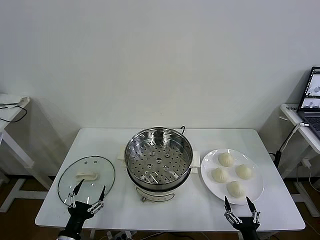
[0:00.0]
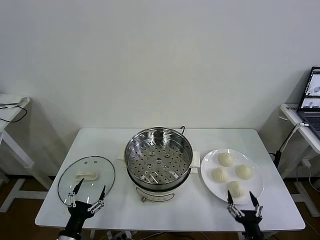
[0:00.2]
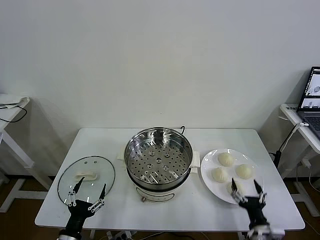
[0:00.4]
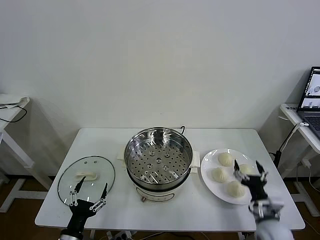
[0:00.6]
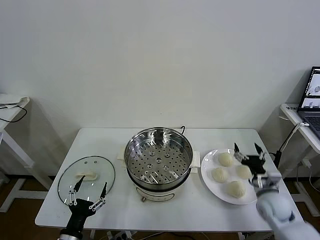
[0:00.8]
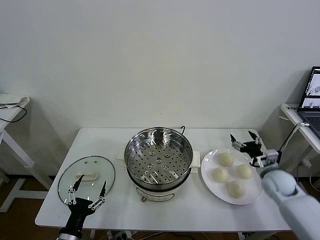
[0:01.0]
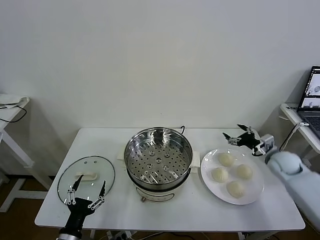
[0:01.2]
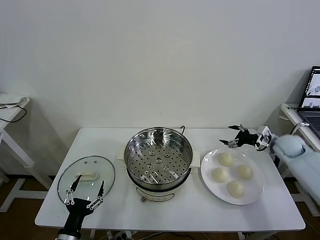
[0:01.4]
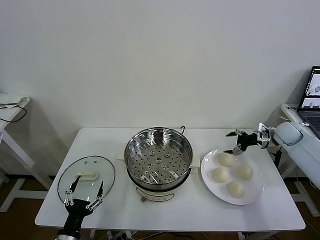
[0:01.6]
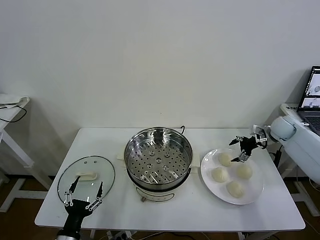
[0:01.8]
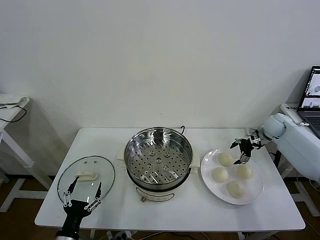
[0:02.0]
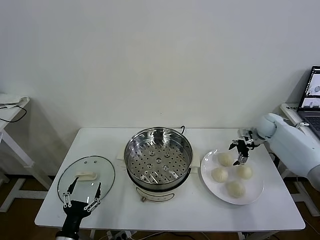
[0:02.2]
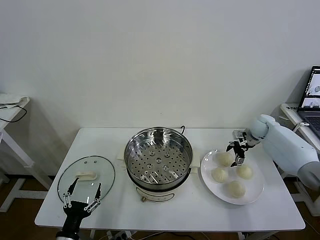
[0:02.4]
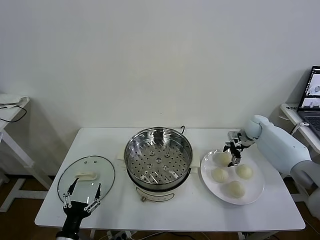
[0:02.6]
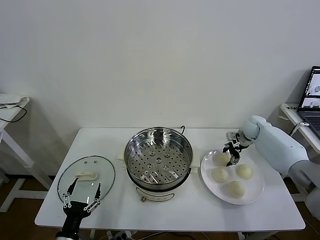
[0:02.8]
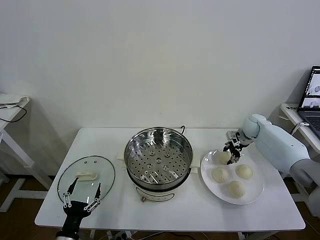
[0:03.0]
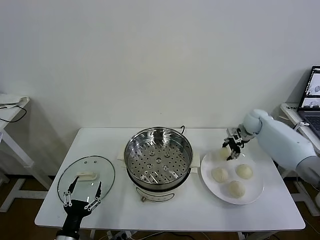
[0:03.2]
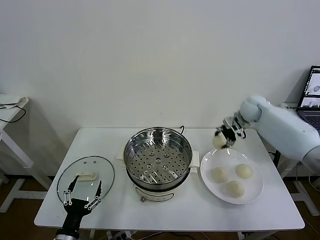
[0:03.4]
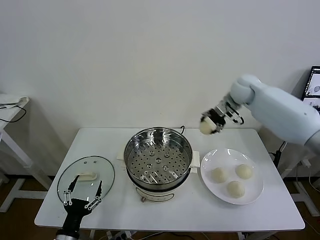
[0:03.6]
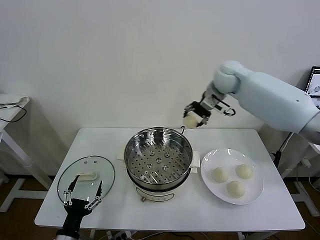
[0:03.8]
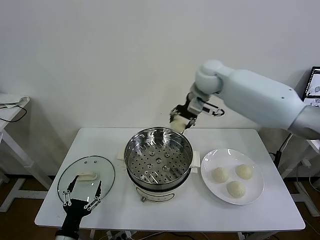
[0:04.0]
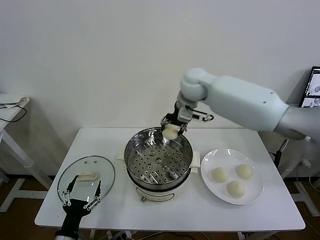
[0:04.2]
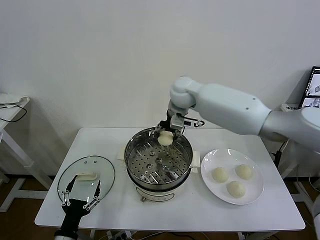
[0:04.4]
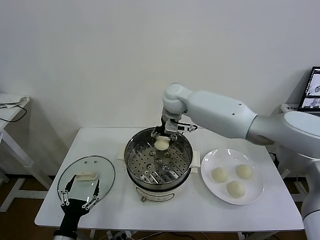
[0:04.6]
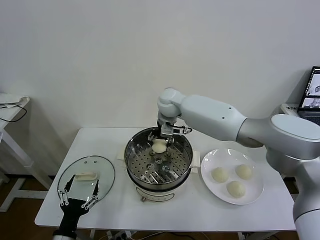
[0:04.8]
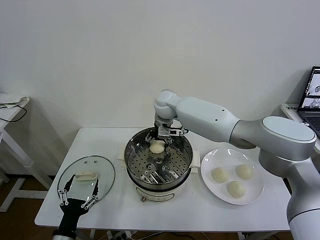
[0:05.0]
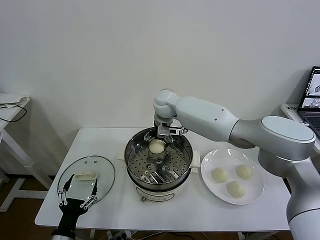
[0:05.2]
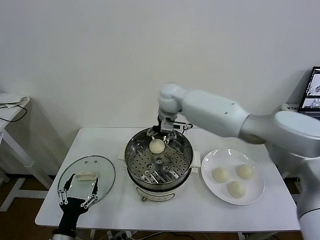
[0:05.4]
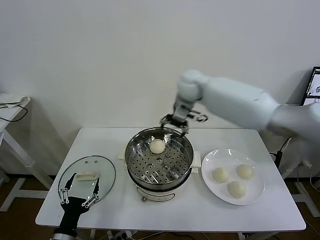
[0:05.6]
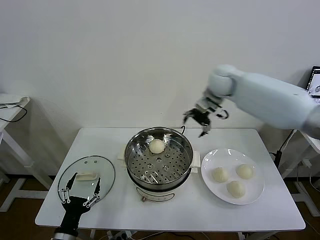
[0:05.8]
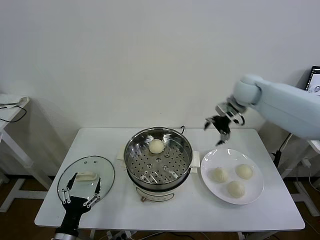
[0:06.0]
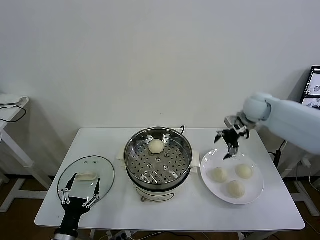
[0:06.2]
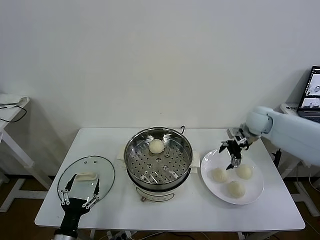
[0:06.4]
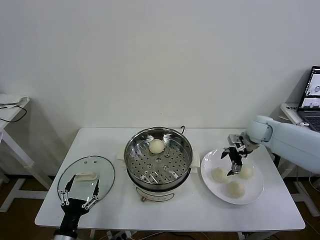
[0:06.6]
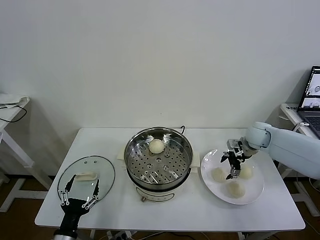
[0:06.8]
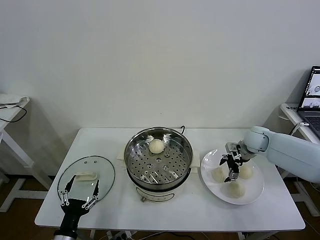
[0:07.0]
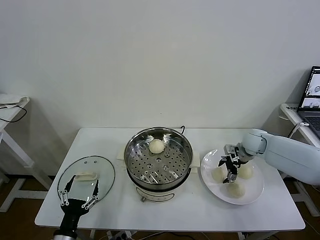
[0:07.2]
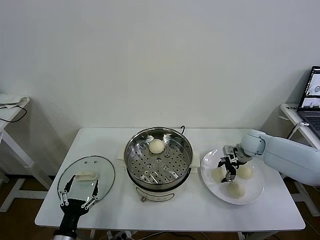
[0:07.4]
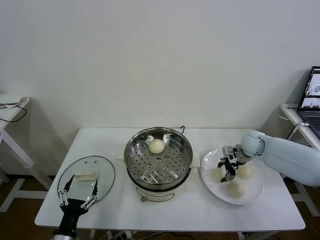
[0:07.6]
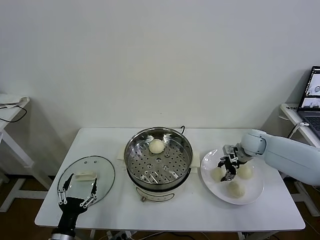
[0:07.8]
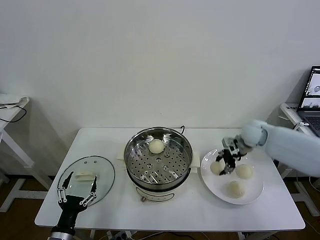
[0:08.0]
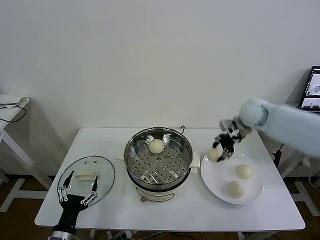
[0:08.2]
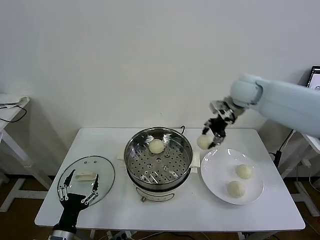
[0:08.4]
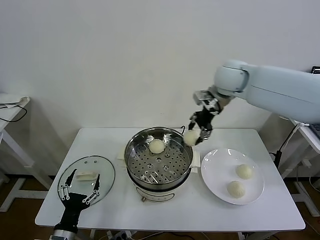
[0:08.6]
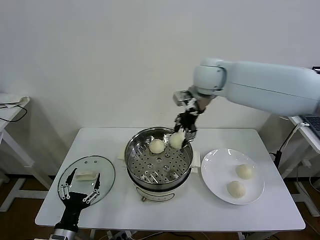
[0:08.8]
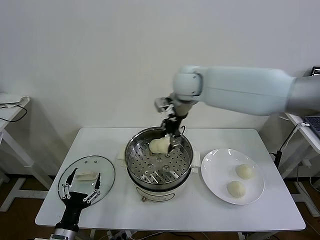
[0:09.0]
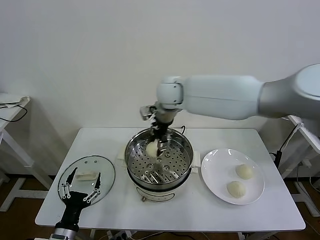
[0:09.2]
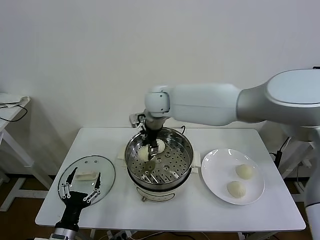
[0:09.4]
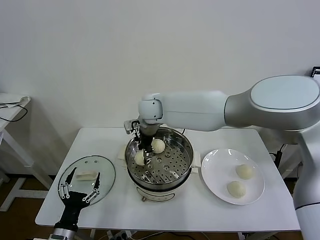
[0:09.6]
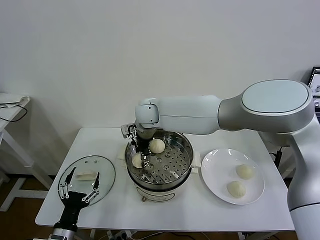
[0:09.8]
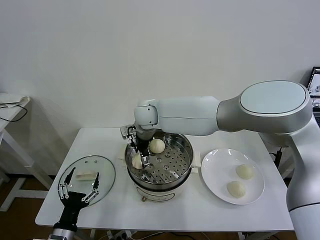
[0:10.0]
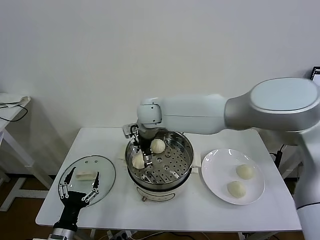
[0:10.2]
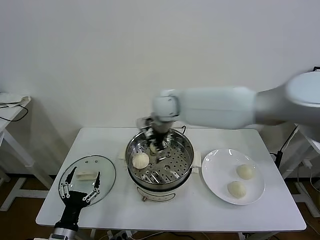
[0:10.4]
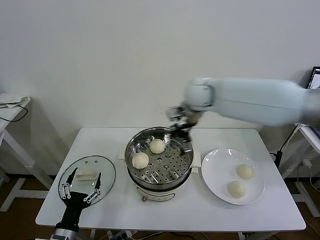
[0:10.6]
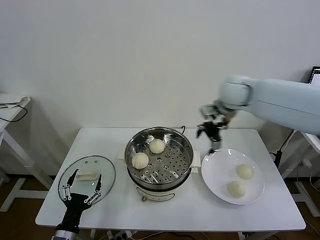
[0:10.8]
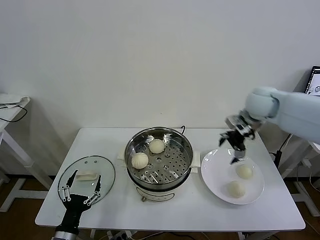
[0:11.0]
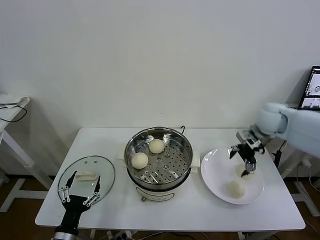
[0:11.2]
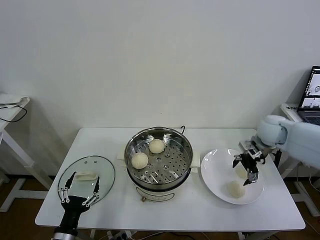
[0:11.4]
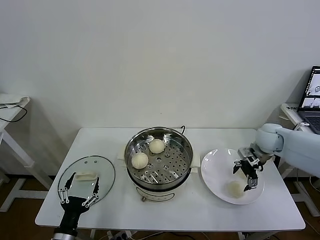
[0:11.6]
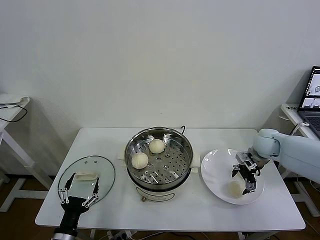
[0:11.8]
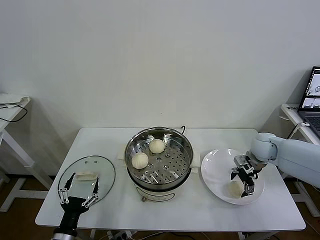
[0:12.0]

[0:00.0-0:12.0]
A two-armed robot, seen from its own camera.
Task of the whole recording: take steamed baozi put them in steamer then cover it.
Step, 0.0 to 2.8 s: Grasp the baozi in the plate with right gripper.
Step, 3.2 to 5.2 s: Place the baozi on the steamer with right gripper.
Step, 5.4 to 7.6 s: Grasp the baozi in the plate with right gripper.
Step, 7.8 to 10.0 s: Place the baozi on the steamer with right gripper.
1.6 to 3.0 s: The right gripper goes some 10 cm to the left and forward, and closes up.
3.0 to 4.4 s: The right gripper moves to the left and upward, about 35 cm.
4.4 to 6.0 s: The right gripper heads to the right, covering some 25 cm, and opens its fingers.
6.0 to 7.6 s: The right gripper moves downward, about 15 cm, and closes up.
7.6 to 9.0 s: The right gripper is displaced to the left and upward by approximately 40 cm.
9.0 to 10.4 s: The right gripper goes to the left and returns, some 10 cm each way, and opens its fingers.
10.4 to 12.0 s: The right gripper moves to the right and downward, about 35 cm.

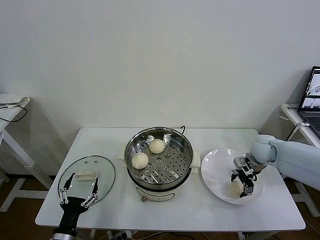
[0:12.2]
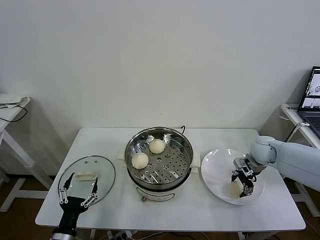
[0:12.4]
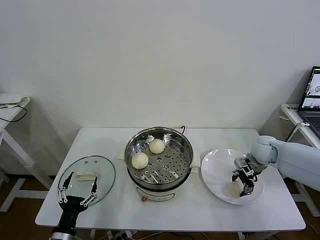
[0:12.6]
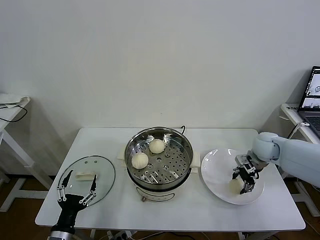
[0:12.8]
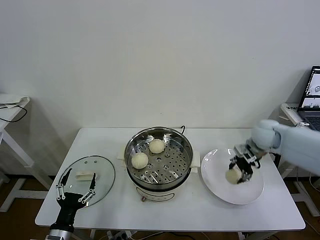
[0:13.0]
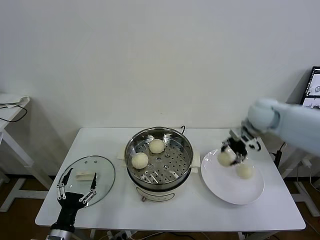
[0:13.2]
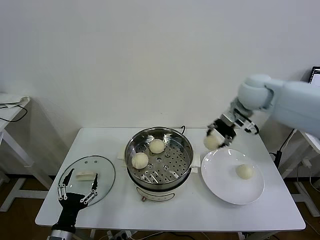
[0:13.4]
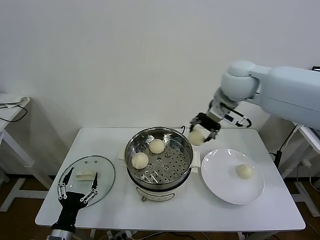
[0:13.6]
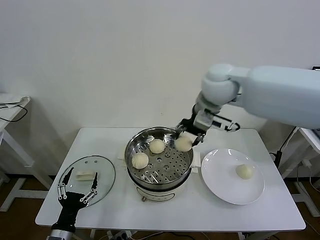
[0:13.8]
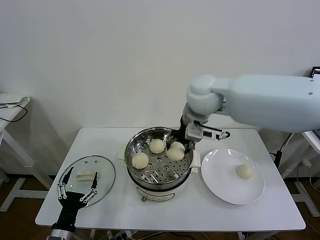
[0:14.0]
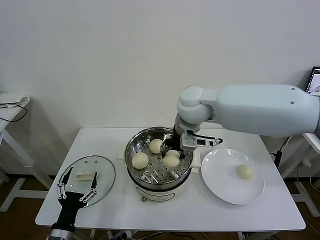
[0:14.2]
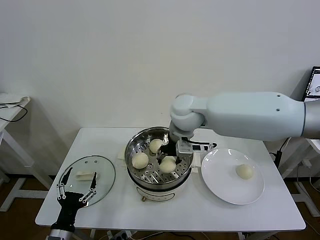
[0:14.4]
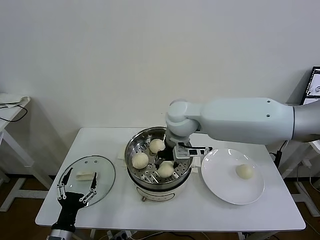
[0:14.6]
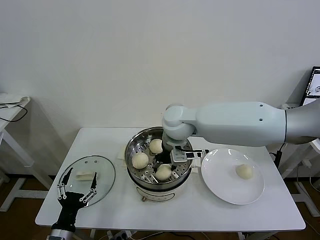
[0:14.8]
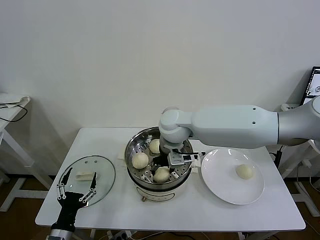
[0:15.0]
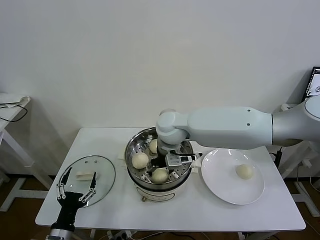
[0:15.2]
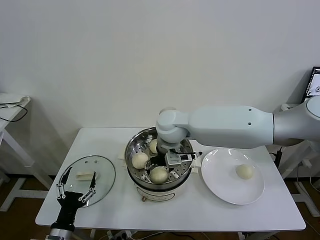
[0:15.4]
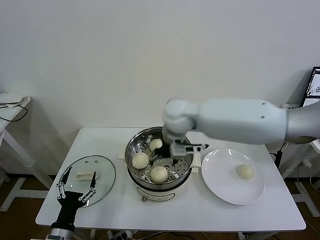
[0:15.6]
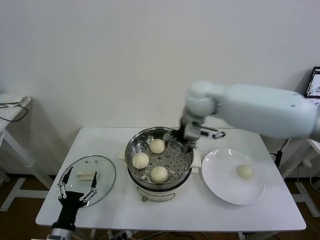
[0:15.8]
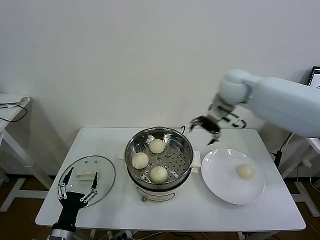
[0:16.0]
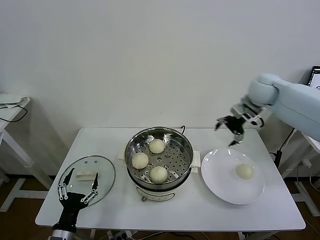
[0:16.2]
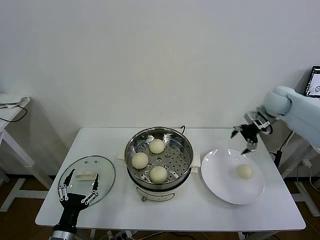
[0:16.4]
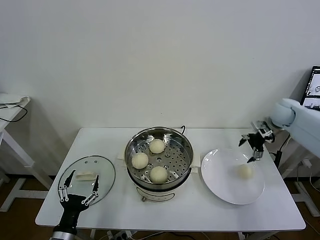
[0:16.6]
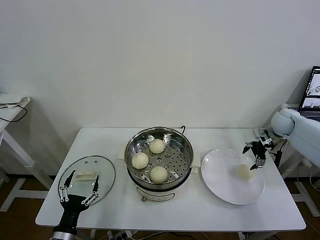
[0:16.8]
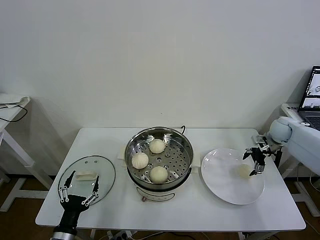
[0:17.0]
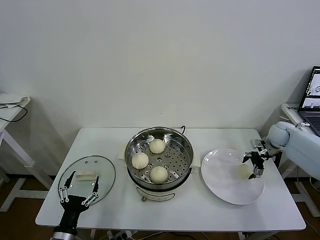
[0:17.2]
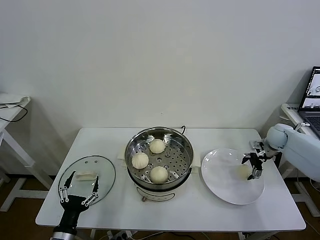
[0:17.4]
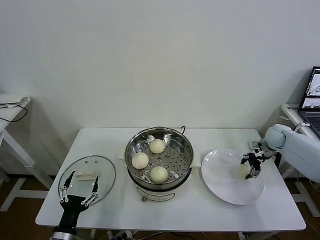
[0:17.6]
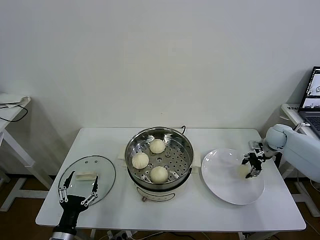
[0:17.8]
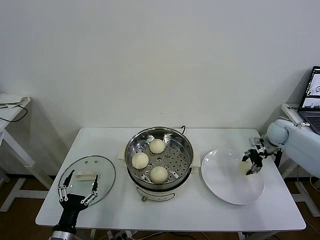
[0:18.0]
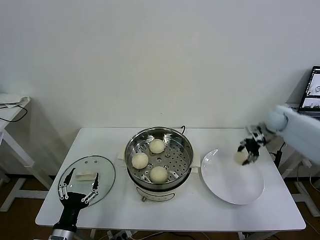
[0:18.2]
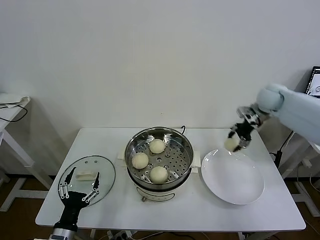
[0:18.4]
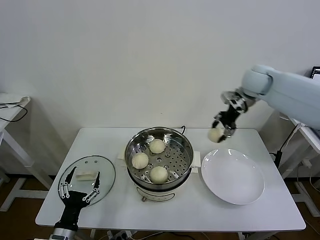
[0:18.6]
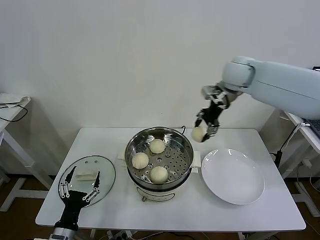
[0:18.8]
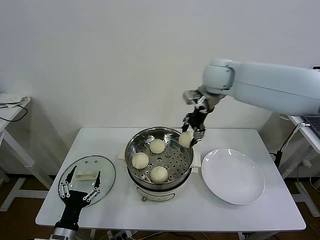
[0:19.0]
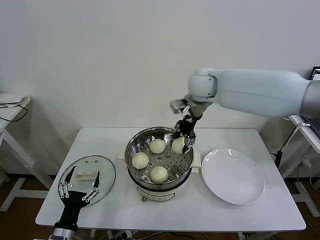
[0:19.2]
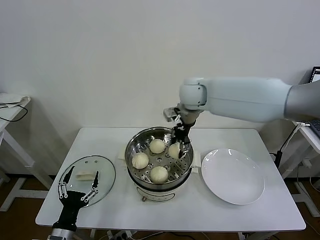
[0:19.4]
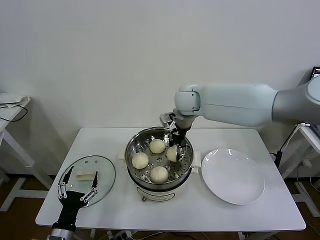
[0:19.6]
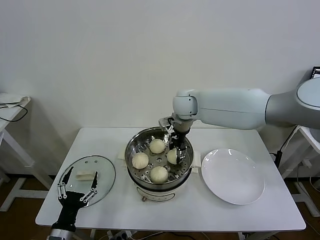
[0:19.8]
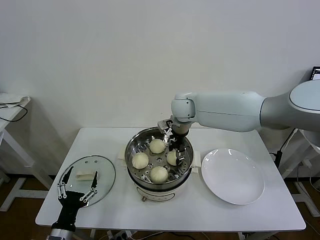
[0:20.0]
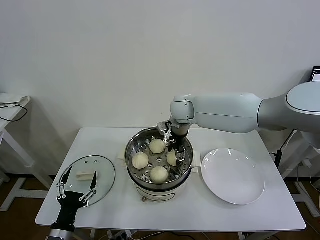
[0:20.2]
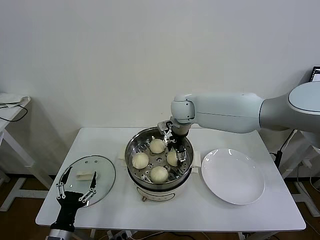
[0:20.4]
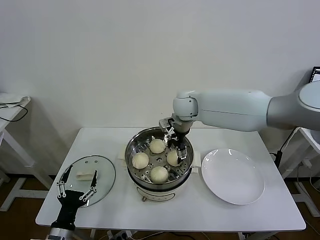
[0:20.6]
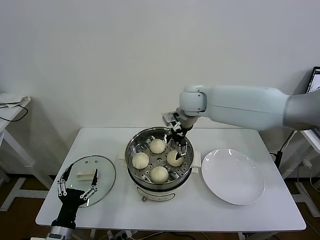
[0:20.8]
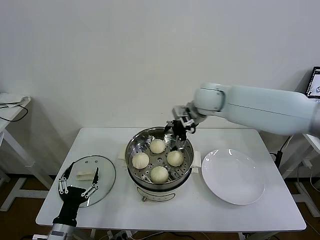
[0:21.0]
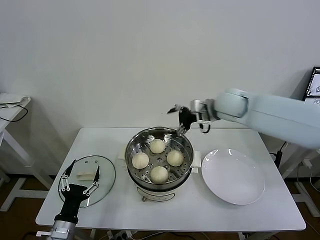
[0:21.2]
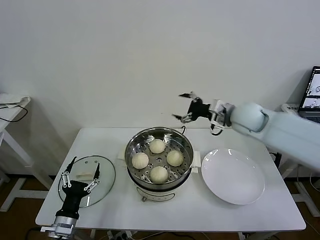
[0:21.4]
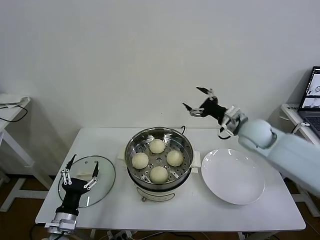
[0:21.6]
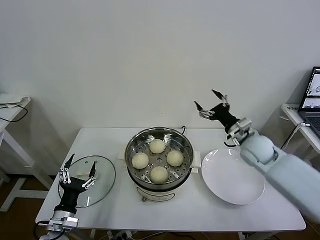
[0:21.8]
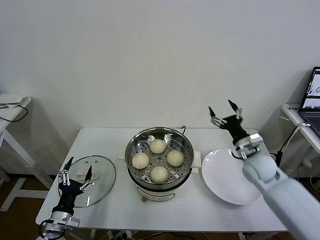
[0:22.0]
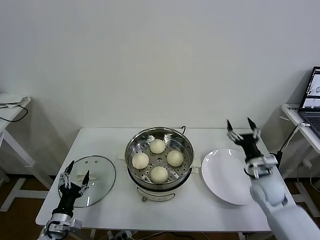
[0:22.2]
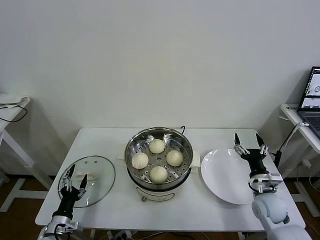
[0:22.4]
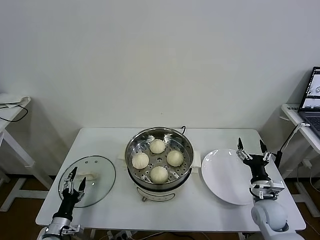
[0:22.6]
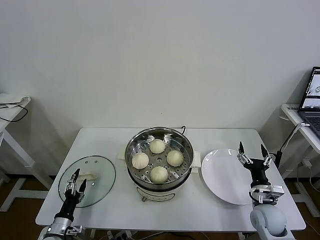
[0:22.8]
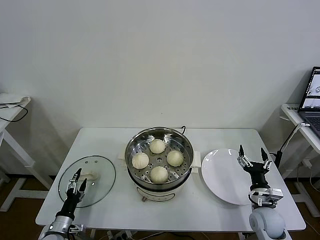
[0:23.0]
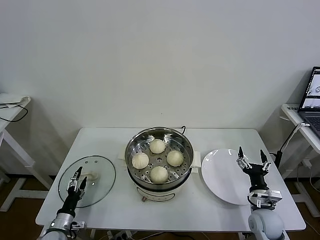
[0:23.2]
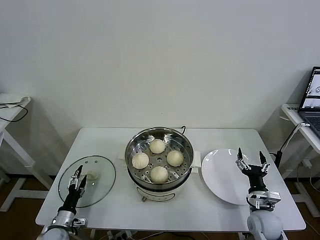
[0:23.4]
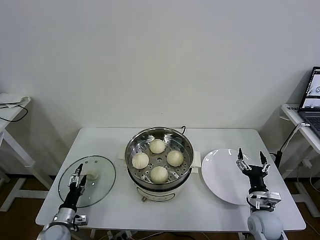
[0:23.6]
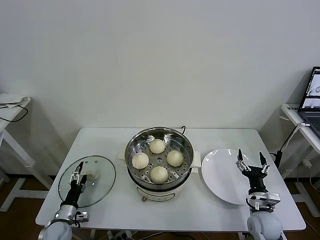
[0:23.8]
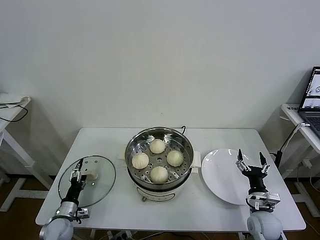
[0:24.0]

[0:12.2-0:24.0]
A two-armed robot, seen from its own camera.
Task of the whole recording: take steamed baozi put them in steamer then cover it.
Step, 12.8 to 15.4 s: Place the baozi on the steamer with right gripper.
Step, 15.6 to 17.6 s: Grasp the baozi in the plate with right gripper.
Step, 18.0 to 20.6 s: Place the baozi on the steamer with right gripper.
12.2 to 13.6 s: The right gripper is displaced upward and to the left by roughly 35 cm, and closes.
13.6 to 15.2 s: The right gripper shifts approximately 20 cm to the left and downward, and opens.
15.2 to 16.6 s: The right gripper travels to the right by roughly 40 cm.
16.6 to 18.2 s: The right gripper reaches approximately 10 cm downward, then returns, and closes its fingers.
18.2 to 19.6 s: The right gripper moves to the left, some 35 cm.
19.6 to 21.0 s: The right gripper shifts approximately 5 cm to the right, and opens.
21.0 to 22.6 s: The left gripper is displaced downward and to the left by some 10 cm, while the right gripper moves downward, backward and to the right, some 40 cm.
22.6 to 24.0 s: The left gripper heads forward, covering roughly 5 cm.
